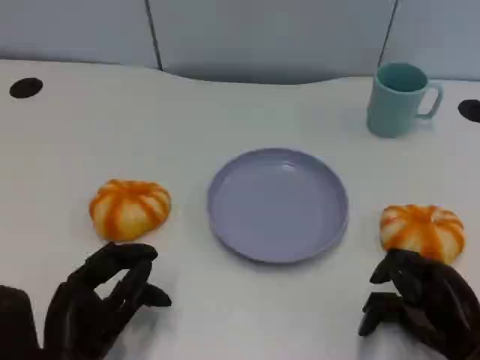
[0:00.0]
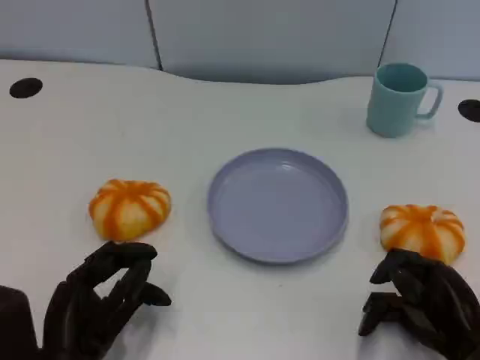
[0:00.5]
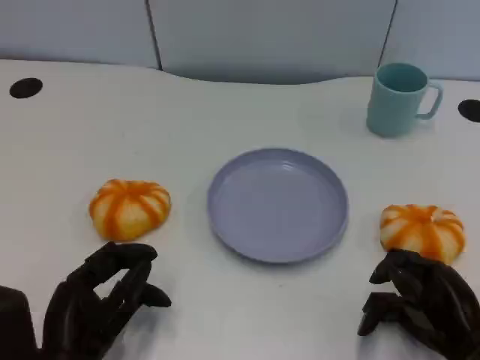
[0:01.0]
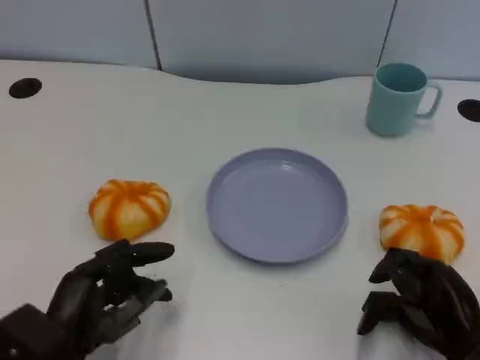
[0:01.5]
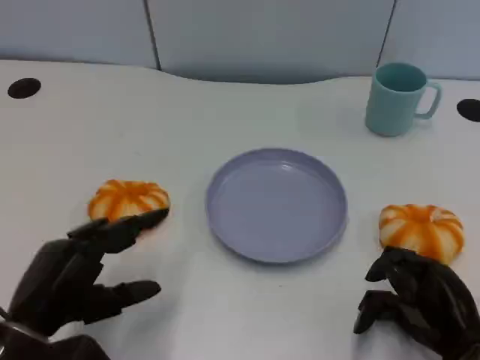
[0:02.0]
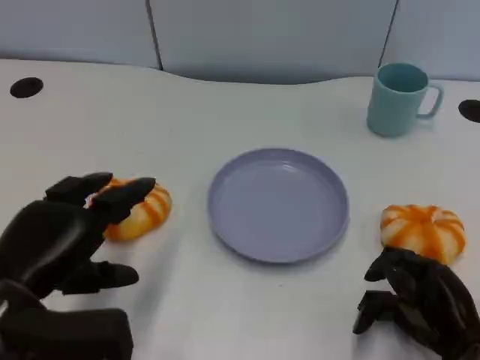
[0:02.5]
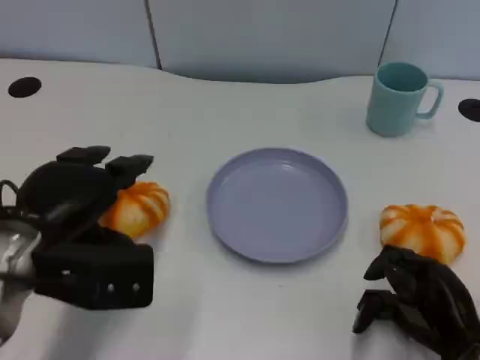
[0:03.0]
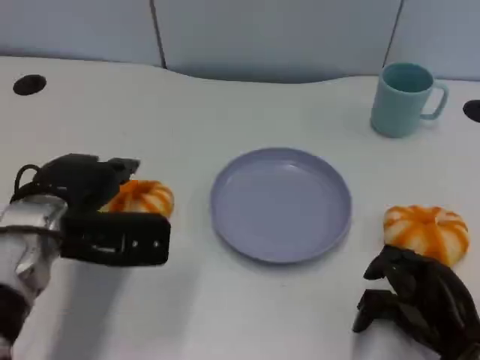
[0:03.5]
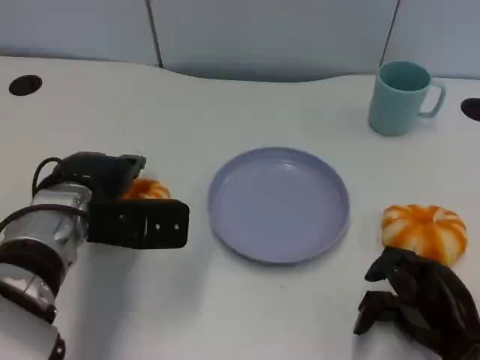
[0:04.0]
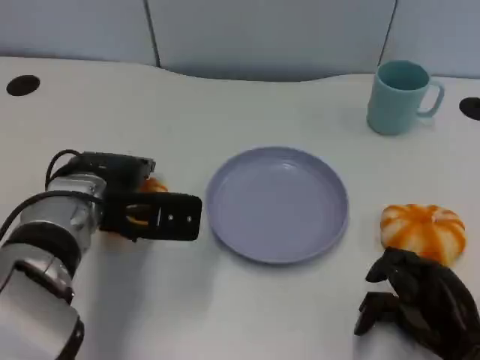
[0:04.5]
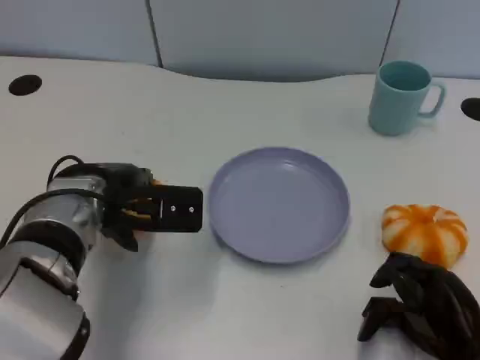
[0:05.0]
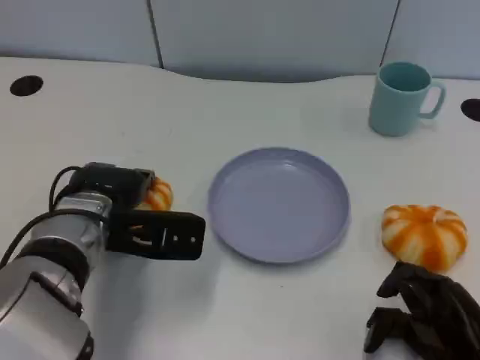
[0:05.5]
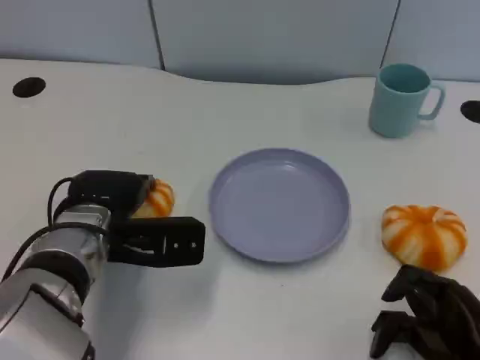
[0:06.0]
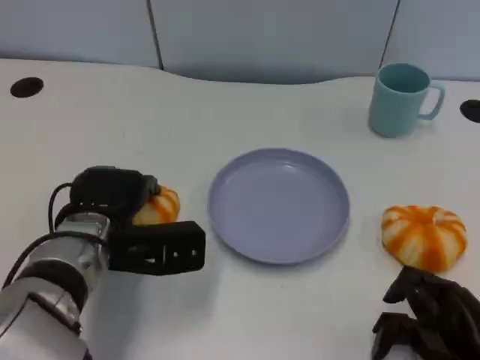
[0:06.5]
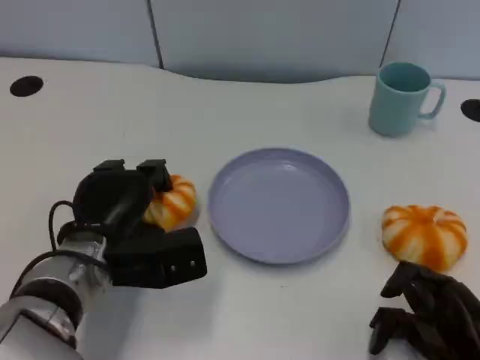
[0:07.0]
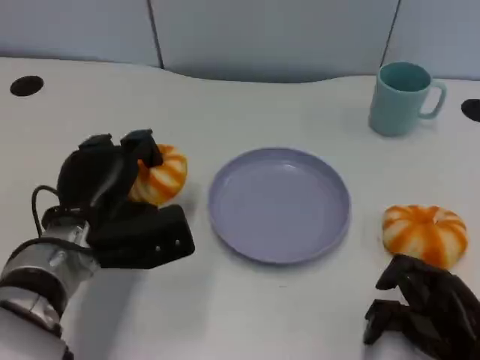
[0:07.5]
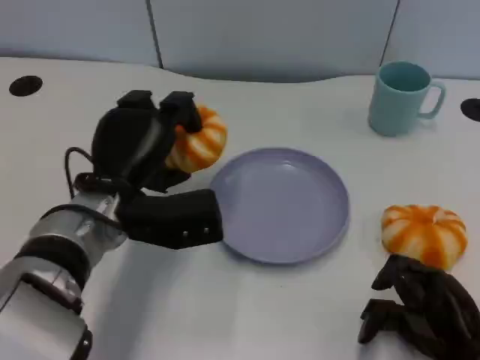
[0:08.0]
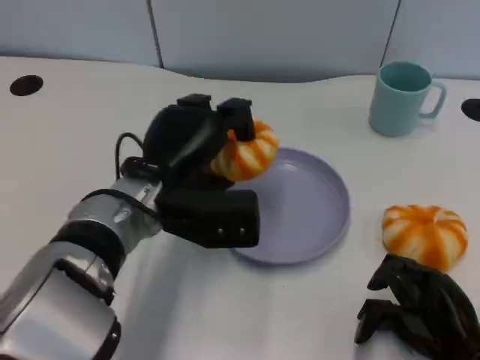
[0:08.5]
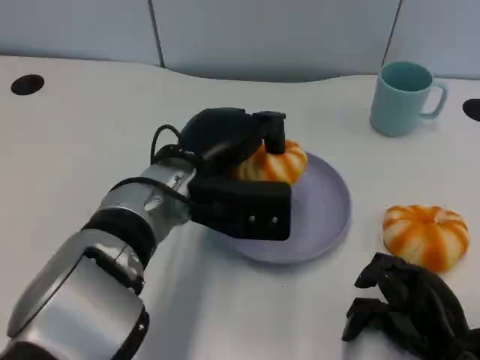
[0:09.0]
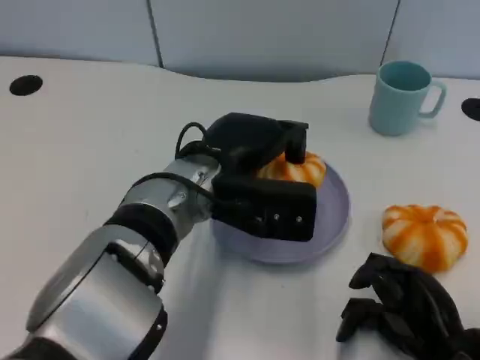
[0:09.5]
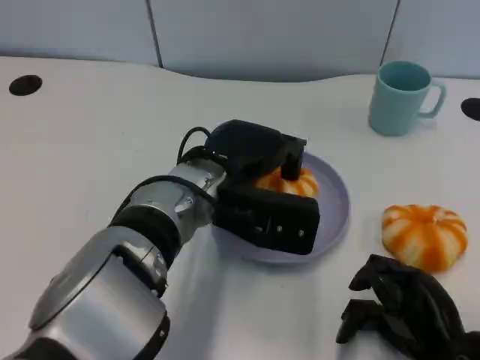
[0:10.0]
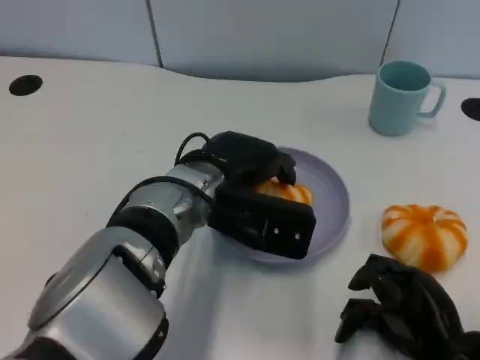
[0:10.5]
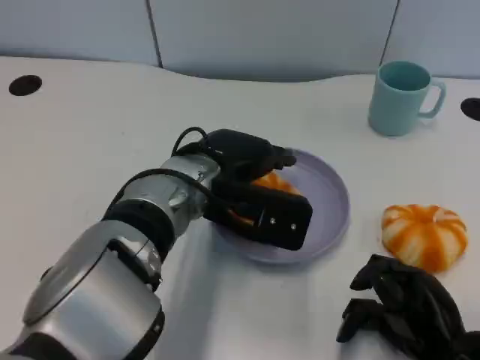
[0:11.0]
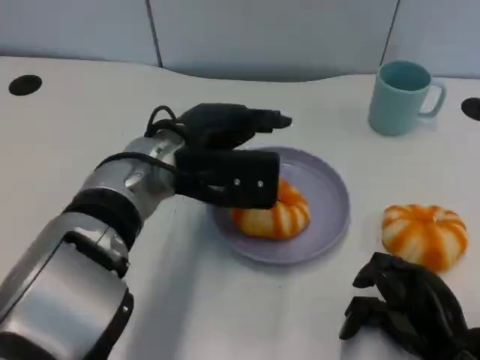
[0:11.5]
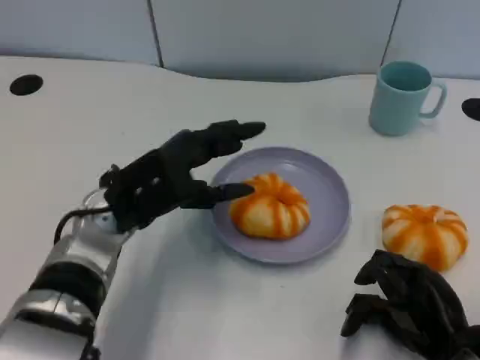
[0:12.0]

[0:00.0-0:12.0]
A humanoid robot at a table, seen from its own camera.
Task of the whole recording: Grasp the bread from the table and place it into the plate.
0.0 to 2.0 s: The left hand ends up some 5 cm from where it was.
2.0 to 4.0 s: The left hand goes approximately 15 cm forward.
4.0 to 6.0 s: The hands stay close to where they were, moving slightly.
8.0 to 10.0 s: The left hand heads to the right, covering some 10 cm.
10.0 to 12.0 s: The left hand goes about 10 cm to the left.

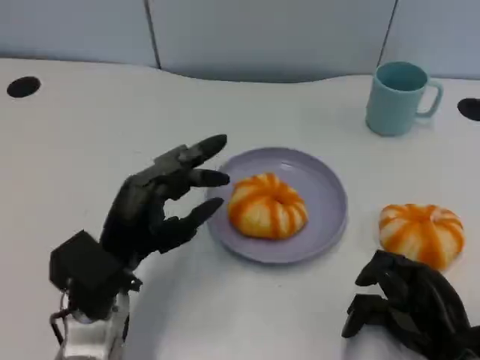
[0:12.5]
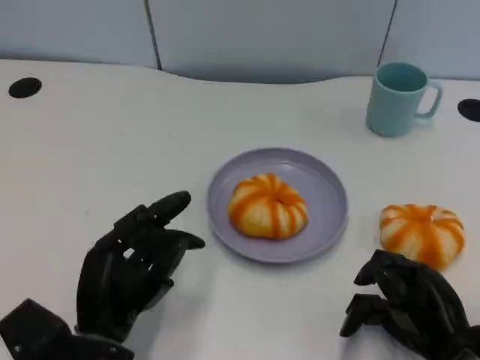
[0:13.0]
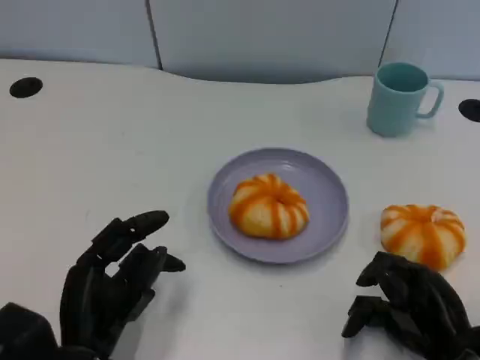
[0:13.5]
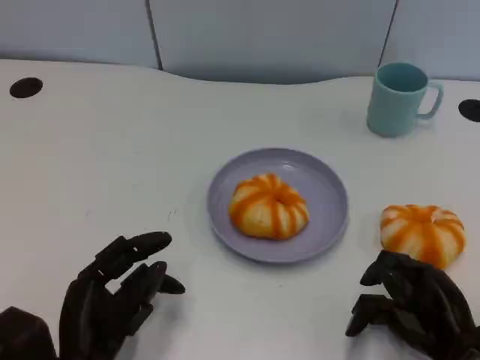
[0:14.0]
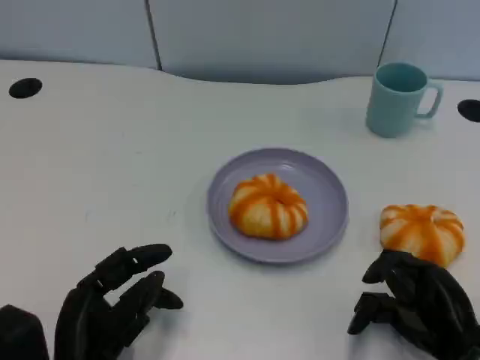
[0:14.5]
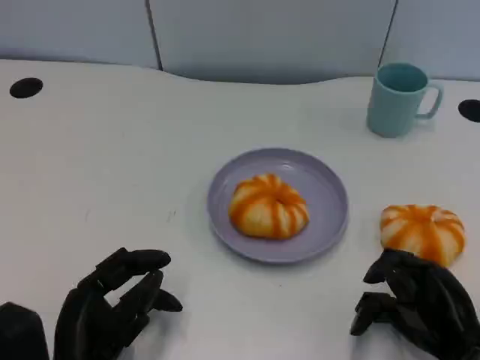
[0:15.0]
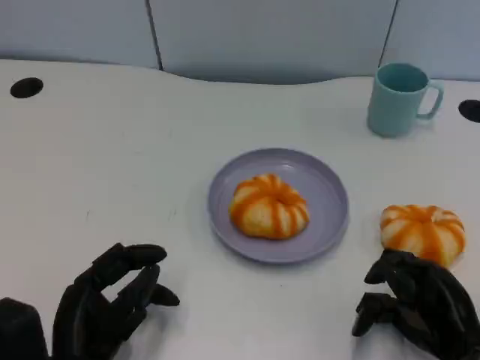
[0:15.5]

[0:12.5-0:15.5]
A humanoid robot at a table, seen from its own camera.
Task of the whole recording: Grasp the bread from the table and place it into the plate.
12.5 to 14.0 s: The left hand travels backward by roughly 5 cm.
14.0 to 15.5 s: The hands move only a little.

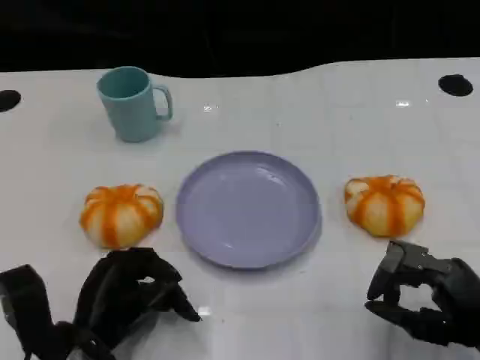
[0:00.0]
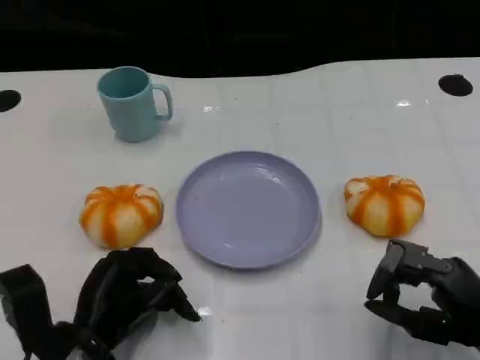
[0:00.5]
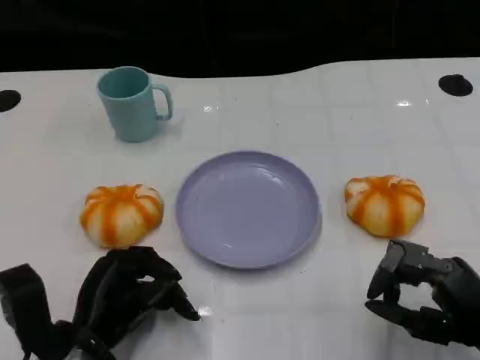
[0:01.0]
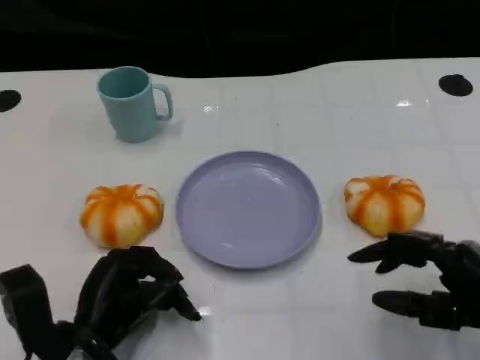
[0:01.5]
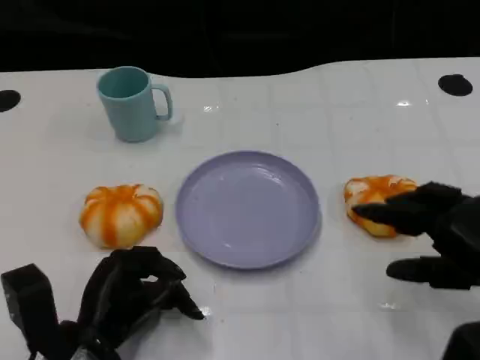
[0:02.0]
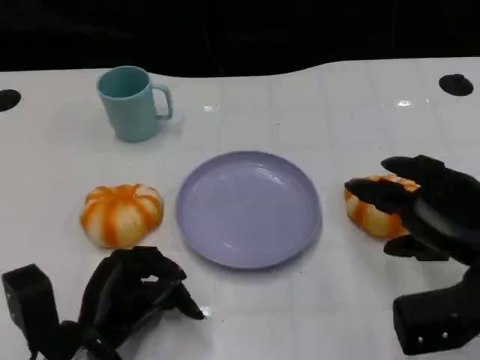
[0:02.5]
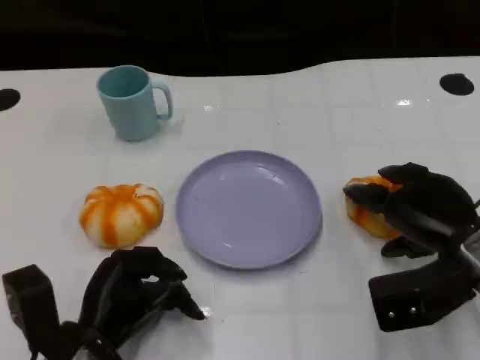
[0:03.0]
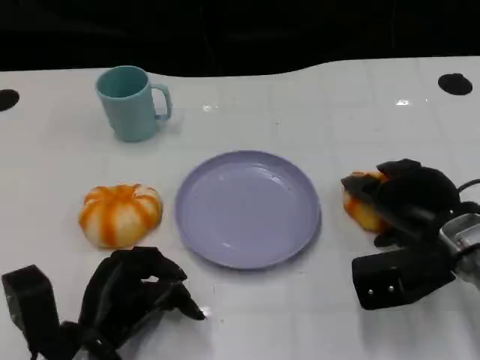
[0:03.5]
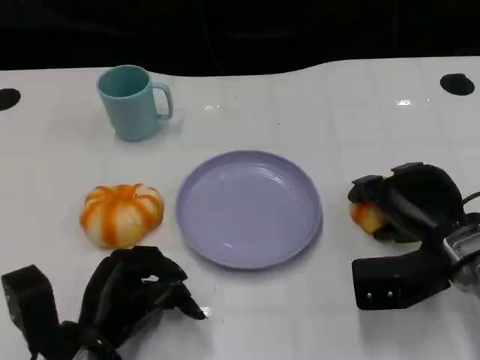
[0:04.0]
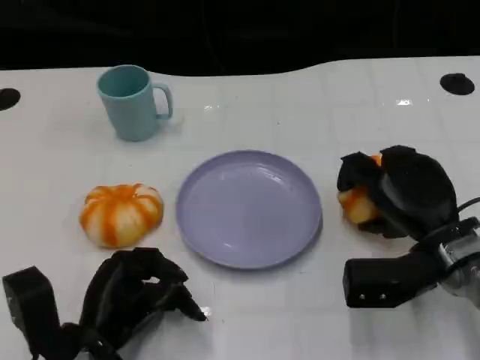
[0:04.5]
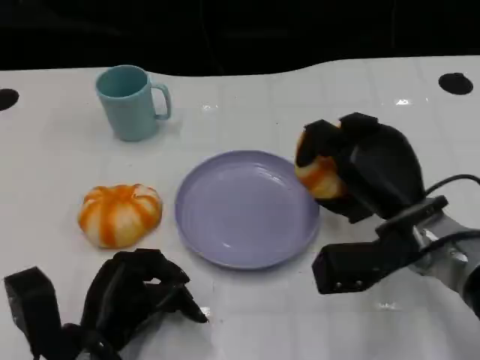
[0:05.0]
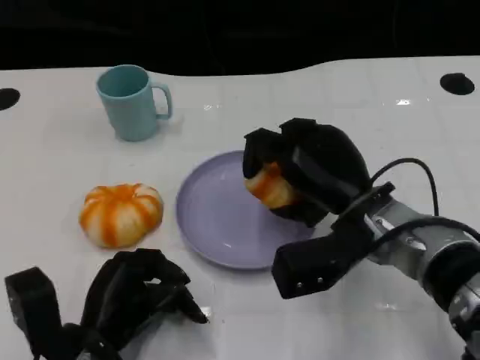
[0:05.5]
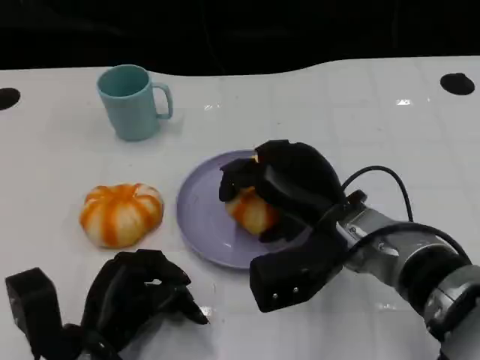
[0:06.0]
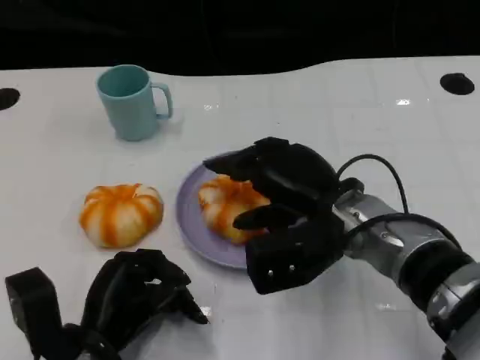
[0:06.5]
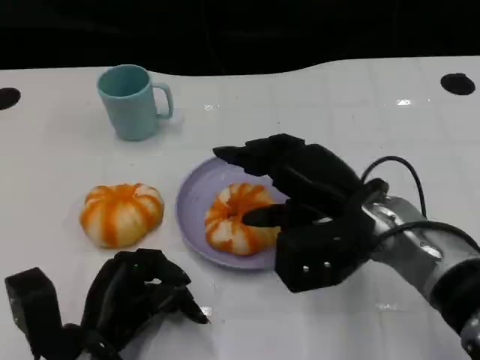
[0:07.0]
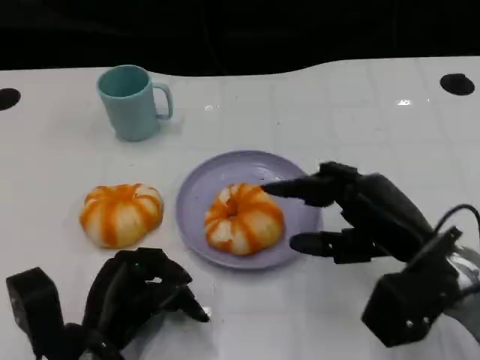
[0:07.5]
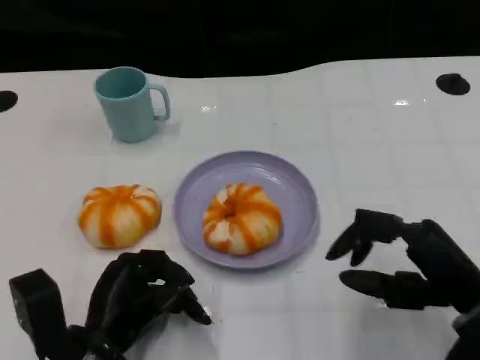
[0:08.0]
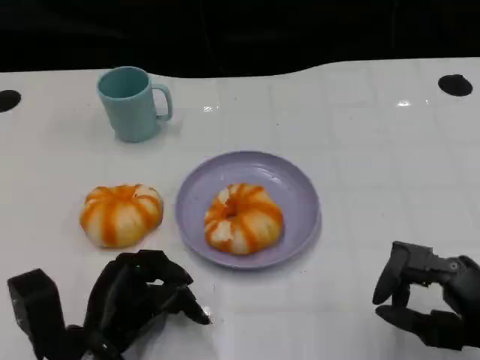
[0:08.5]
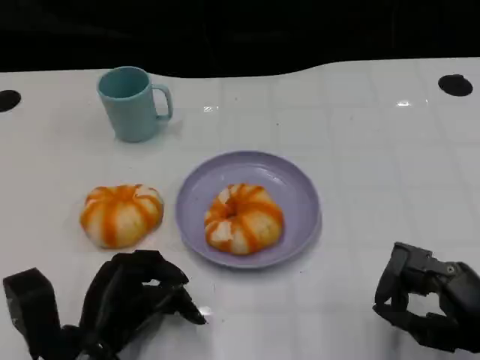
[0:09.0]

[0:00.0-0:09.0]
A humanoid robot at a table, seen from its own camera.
Task of the whole recording: Grasp the bread from the table and place it into the plate.
0.0 to 2.0 s: The right hand is displaced upward by approximately 5 cm.
2.0 to 4.5 s: The right hand is displaced forward, to the left and downward by approximately 10 cm.
4.5 to 7.0 s: The right hand heads to the left and upward, covering some 10 cm.
7.0 to 9.0 s: The right hand goes some 20 cm to the right, backward and downward.

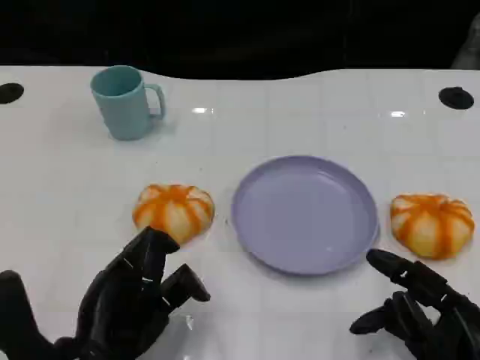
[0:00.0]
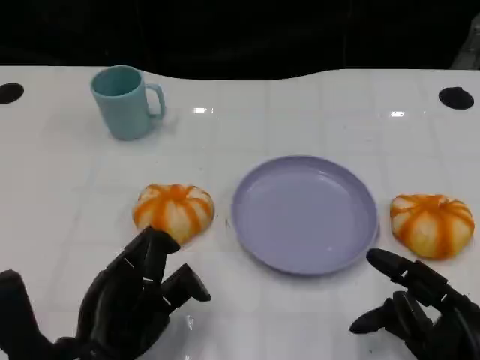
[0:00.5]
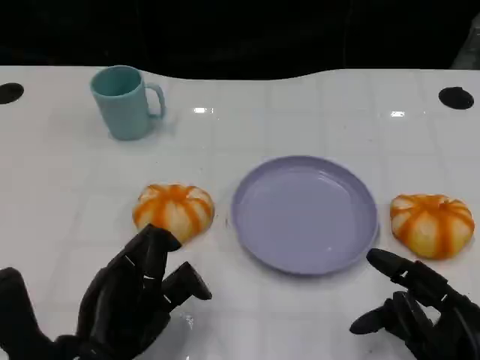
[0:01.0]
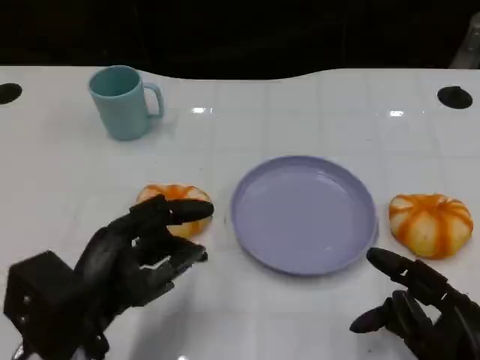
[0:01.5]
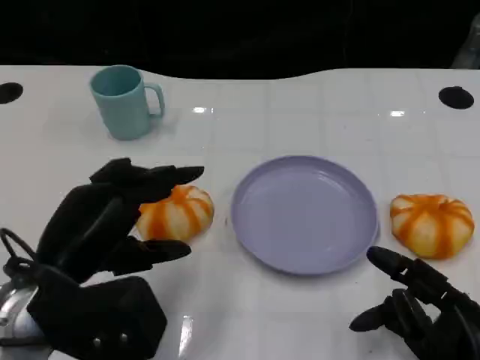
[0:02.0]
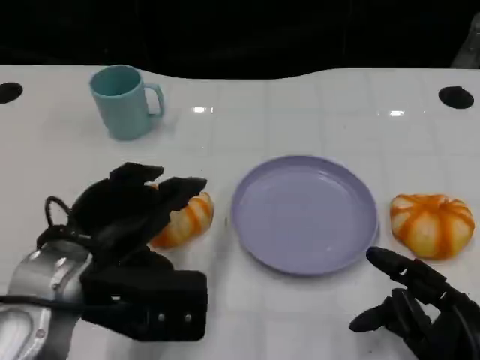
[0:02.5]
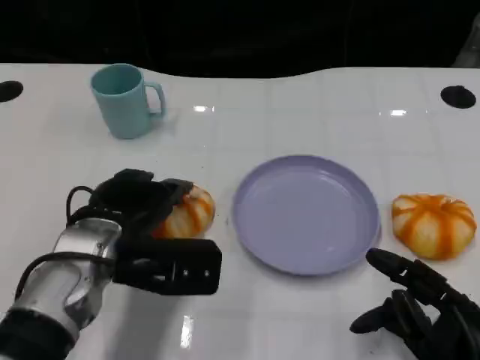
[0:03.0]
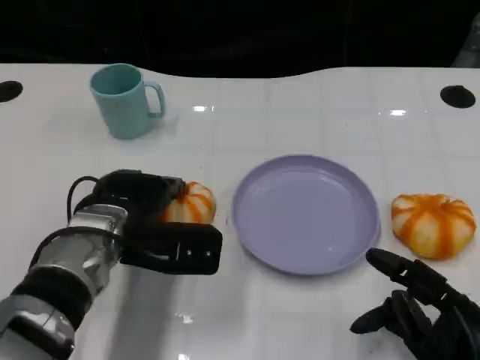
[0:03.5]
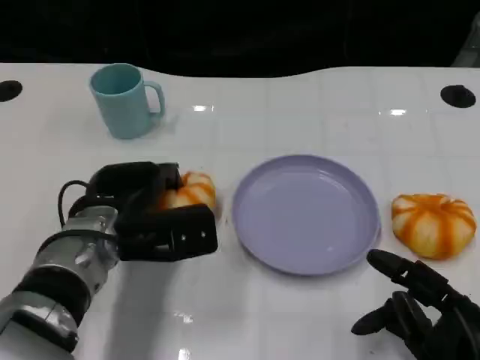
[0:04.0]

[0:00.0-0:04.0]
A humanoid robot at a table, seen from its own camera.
Task of the whole recording: Grasp the bread from the table and place it into the plate.
0.0 to 2.0 s: The left hand moves upward, some 5 cm.
2.0 to 4.0 s: The left hand goes approximately 10 cm forward and downward.
